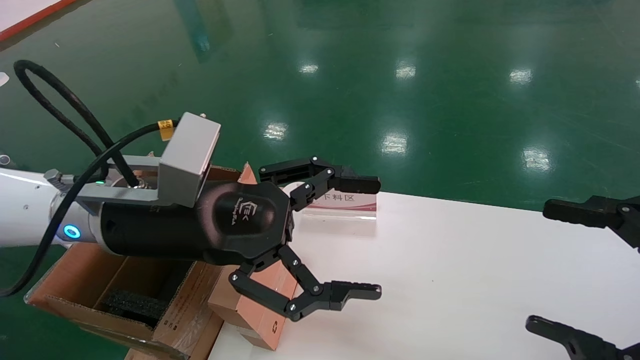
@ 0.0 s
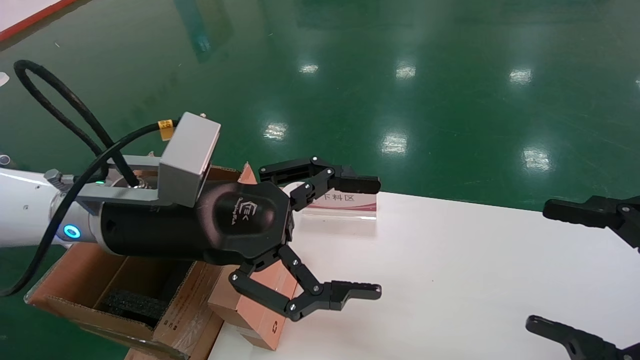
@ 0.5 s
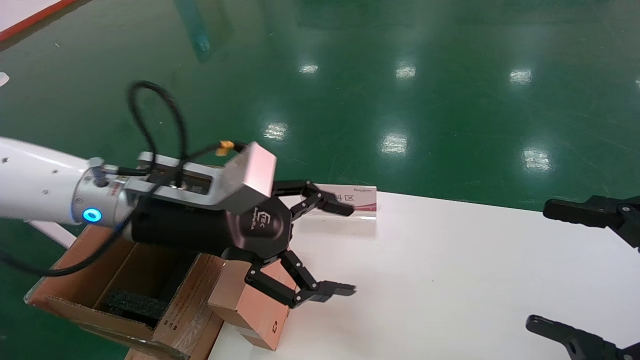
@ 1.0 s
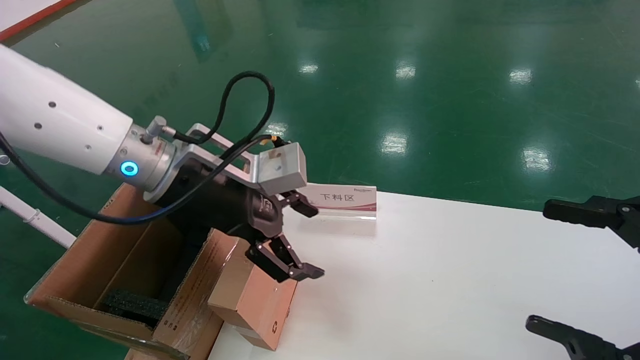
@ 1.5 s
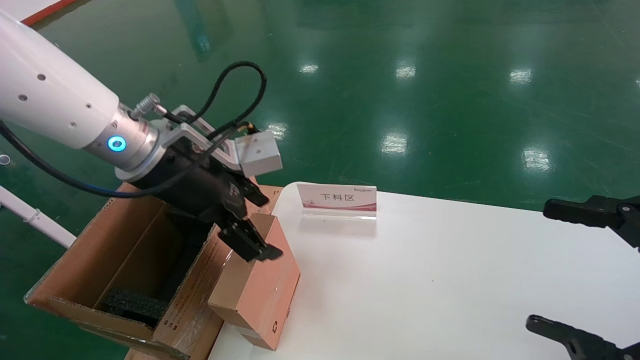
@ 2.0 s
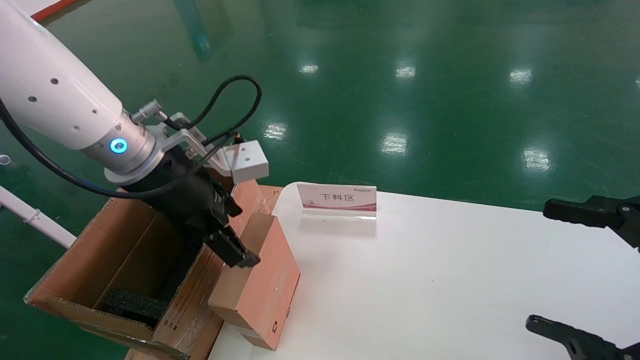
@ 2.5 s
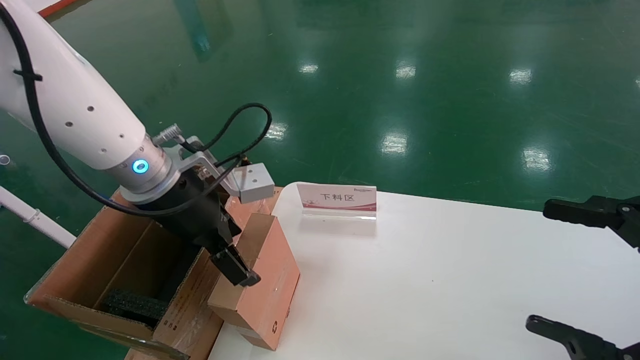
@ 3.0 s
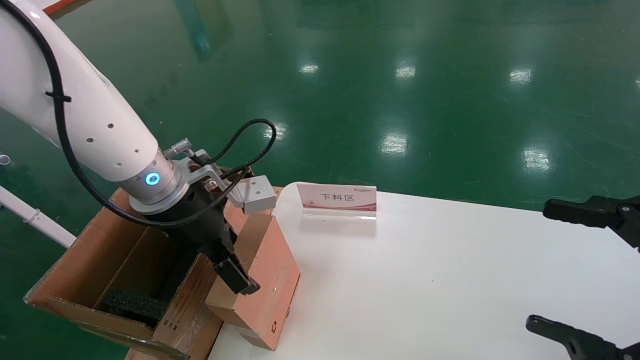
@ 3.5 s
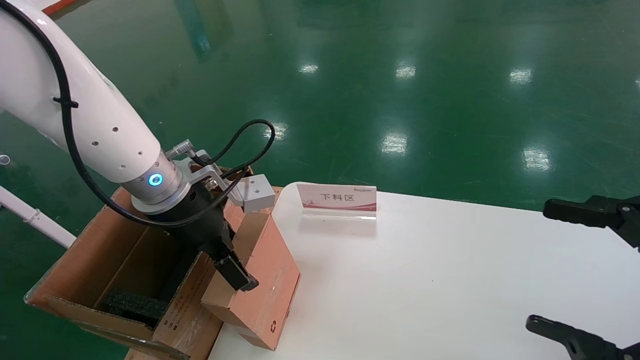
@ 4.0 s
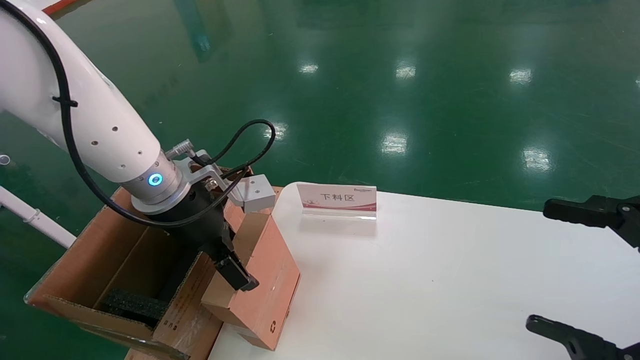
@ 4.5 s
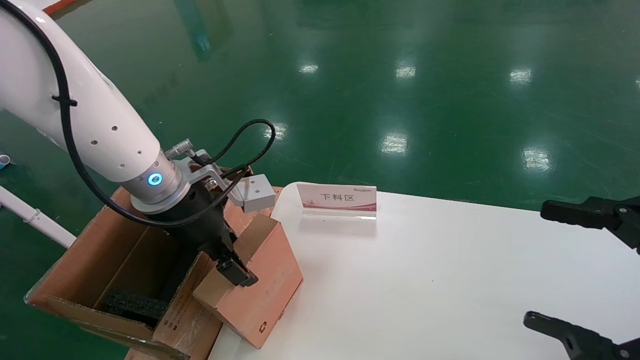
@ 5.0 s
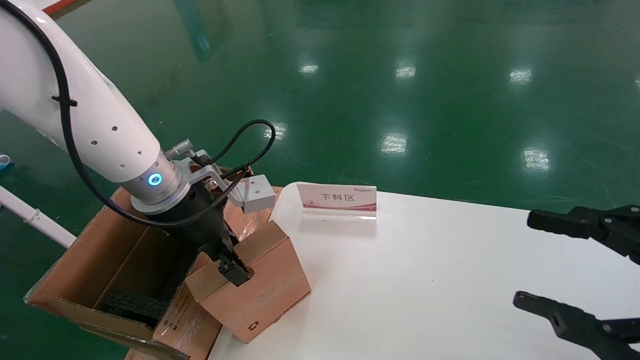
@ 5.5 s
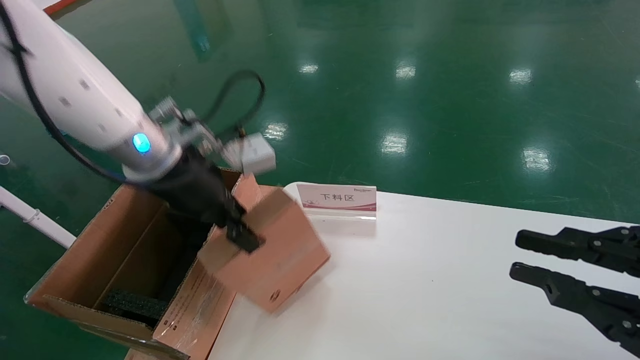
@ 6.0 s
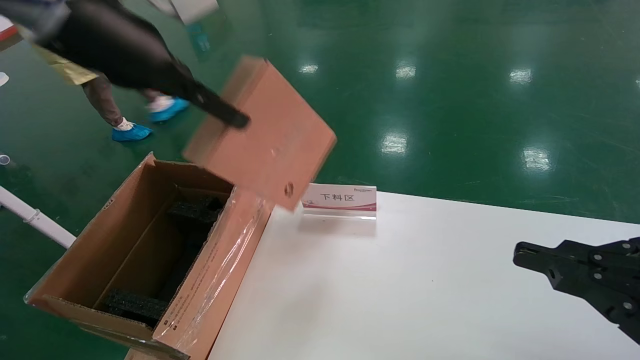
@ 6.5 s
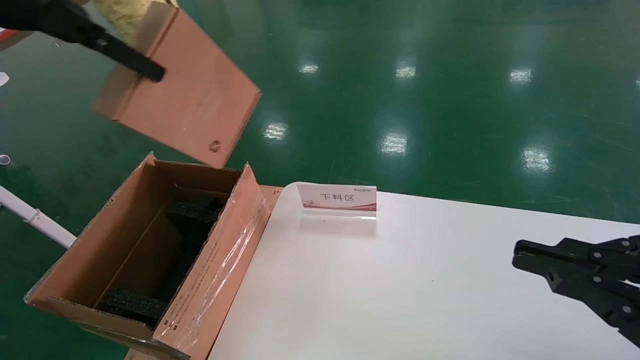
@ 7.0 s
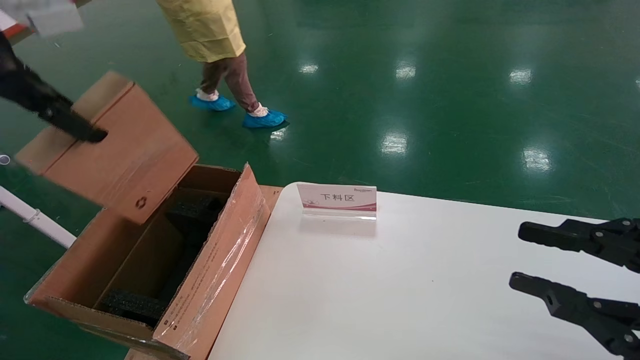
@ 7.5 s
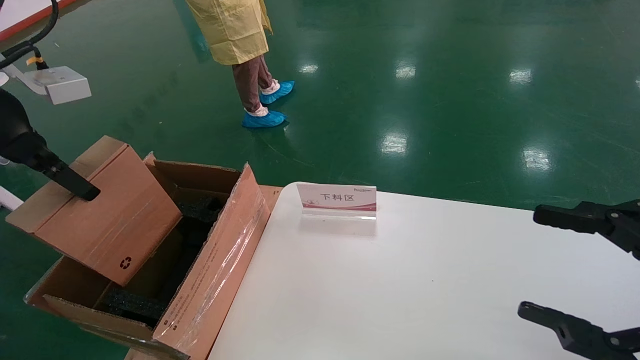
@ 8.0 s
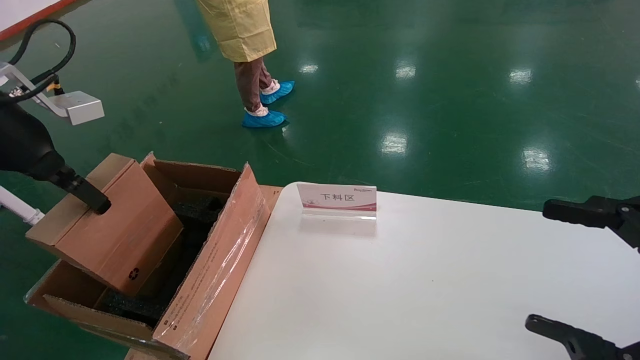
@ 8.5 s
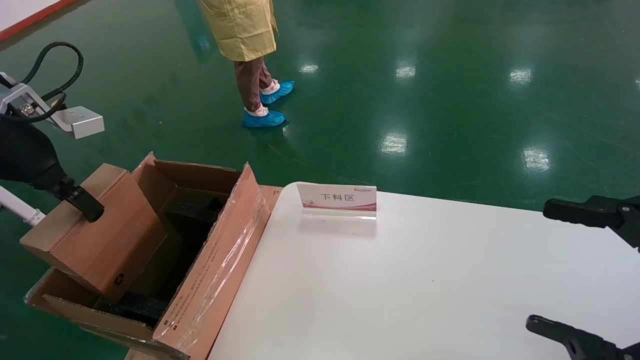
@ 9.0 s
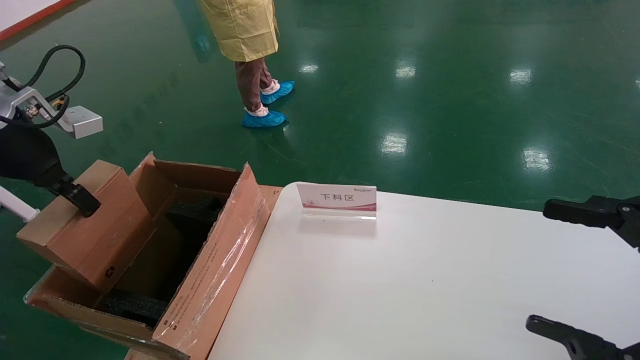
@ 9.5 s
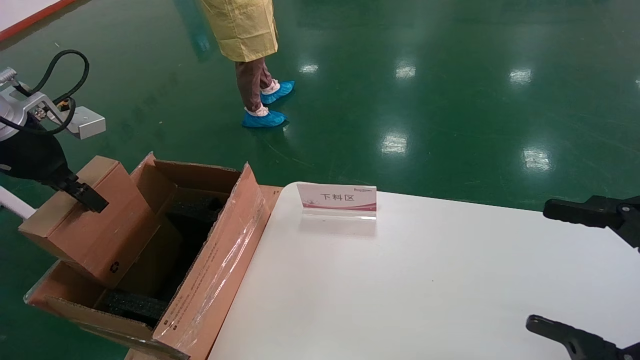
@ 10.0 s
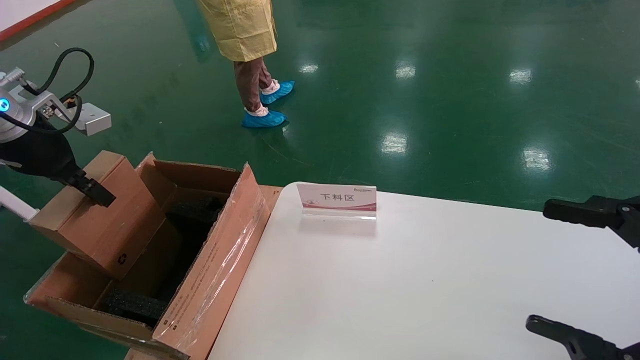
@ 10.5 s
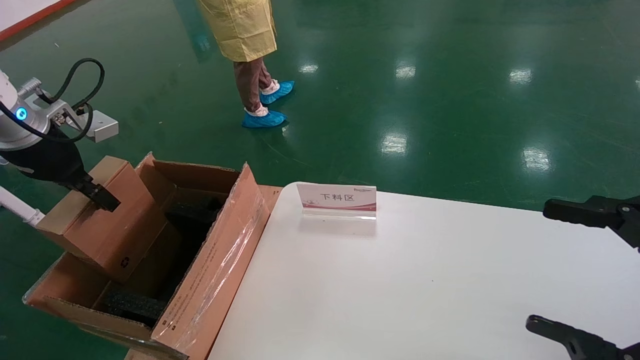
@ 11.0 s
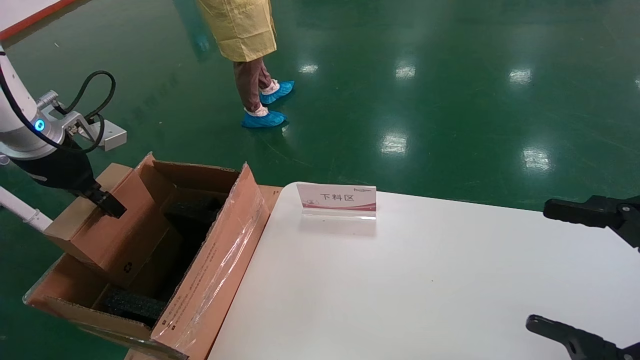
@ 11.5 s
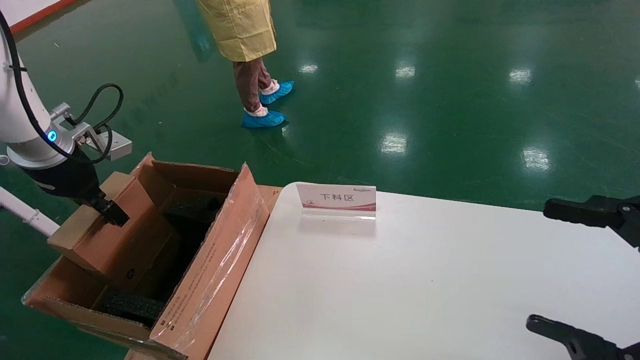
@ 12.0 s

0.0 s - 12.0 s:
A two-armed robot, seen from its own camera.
Task of the whole recording: pick up the small cardboard box and load it into the large cardboard box.
Step, 1.0 s - 5.5 s: Pick up the mouse and power cord box.
0.0 s - 2.0 s: The left gripper moves forward, approximately 5 cm.
2.0 s - 4.0 s: The left gripper moves some 5 cm.
4.0 s - 6.0 s: The right gripper closes up. The left gripper shifts roughly 5 cm upward, and closes its fingers.
6.0 s - 8.0 s: The right gripper opens up. Meanwhile the left gripper moves to the left, upward and backward, roughly 20 cm.
8.0 s - 10.0 s: The left gripper travels downward and forward by approximately 10 cm.
10.0 s - 12.0 s: The left gripper moves some 5 cm.

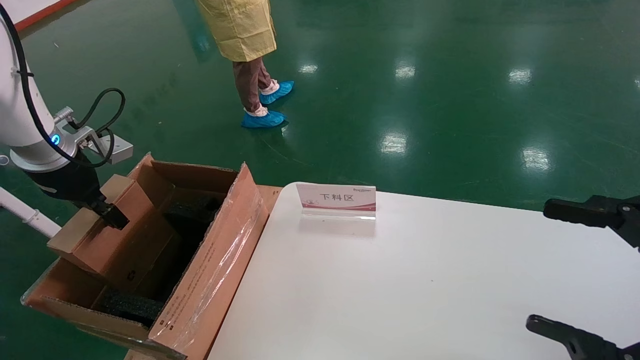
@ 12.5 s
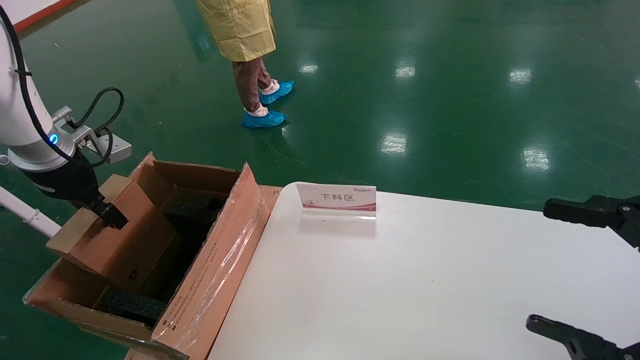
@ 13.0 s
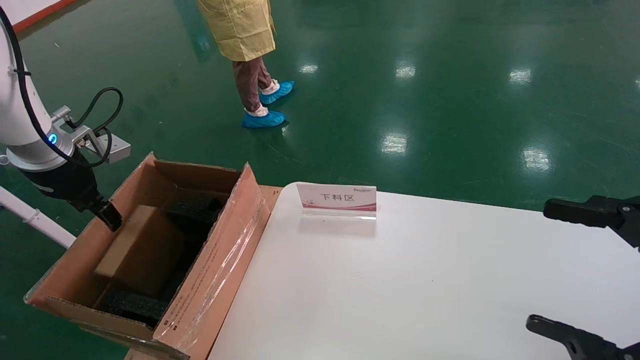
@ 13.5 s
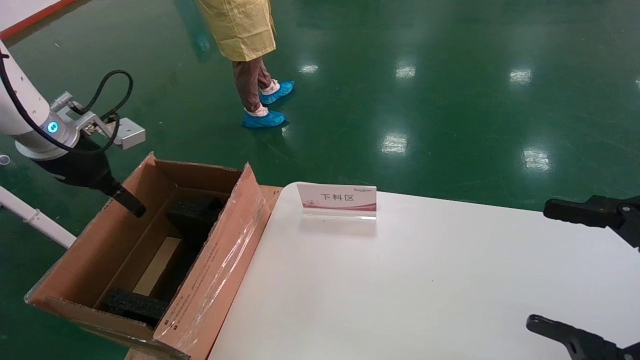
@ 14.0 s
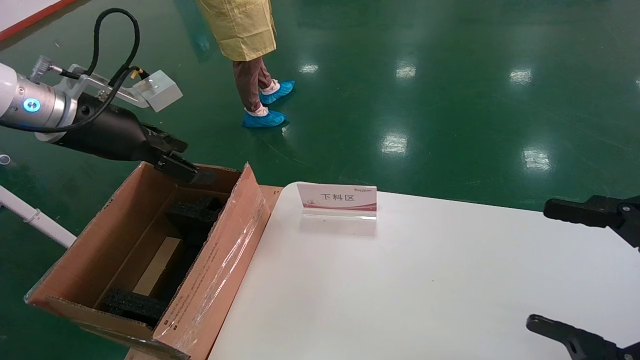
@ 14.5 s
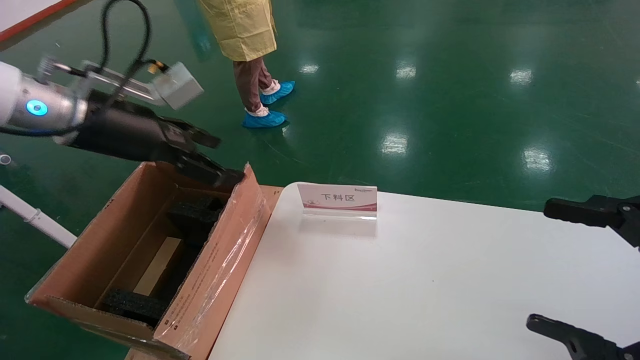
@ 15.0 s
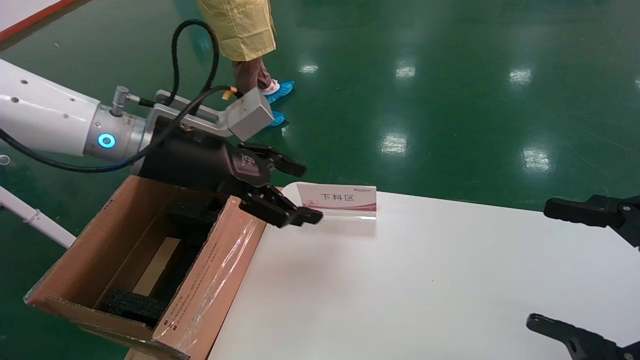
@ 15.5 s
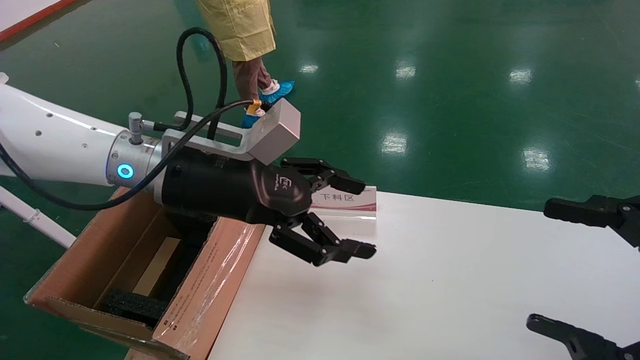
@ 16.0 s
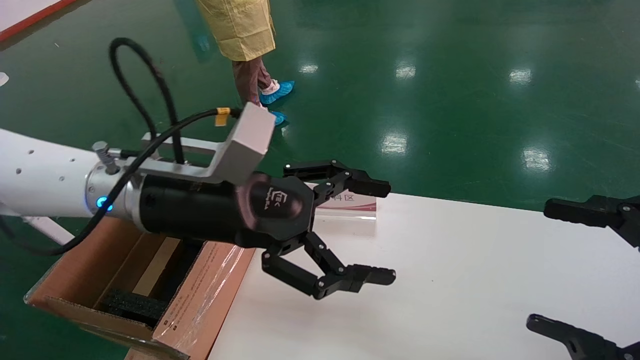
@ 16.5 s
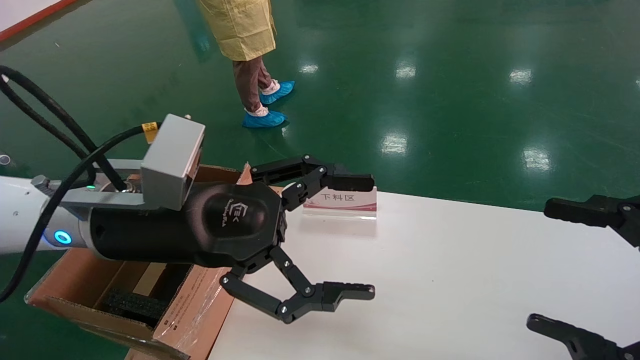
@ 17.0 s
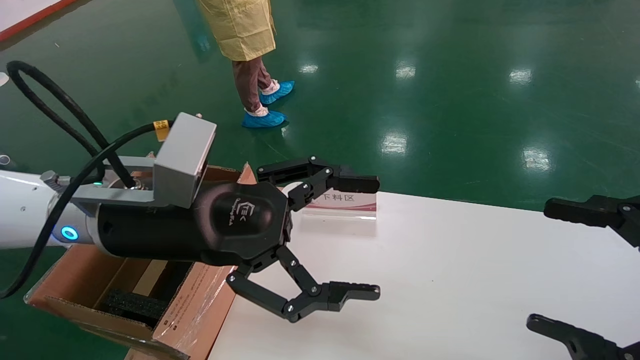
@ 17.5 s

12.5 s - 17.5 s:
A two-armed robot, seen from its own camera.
Task of the whole recording: pick up the small cardboard box and load it into the large cardboard box.
12.5 s - 15.0 s: The left gripper is displaced to the right and upward by approximately 15 cm, and opens its fingers.
15.0 s - 17.5 s: The left gripper goes roughly 15 cm to the right, backward and downward.
